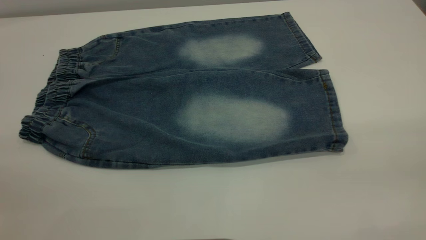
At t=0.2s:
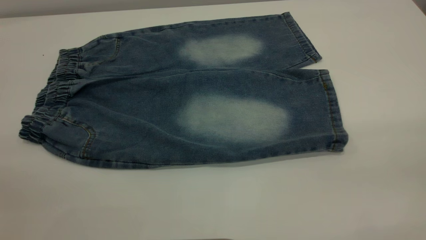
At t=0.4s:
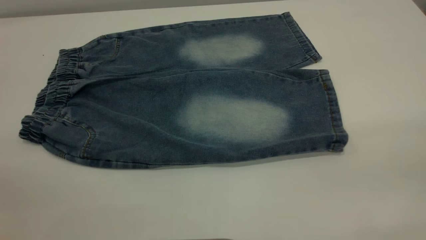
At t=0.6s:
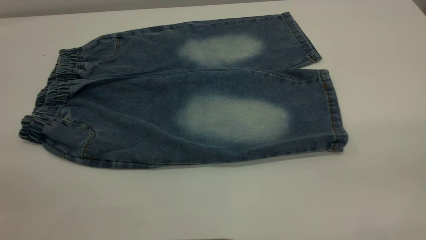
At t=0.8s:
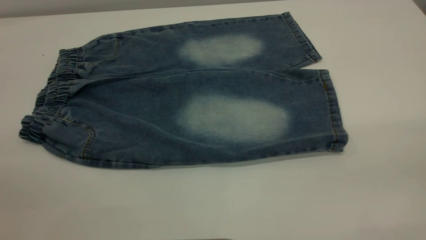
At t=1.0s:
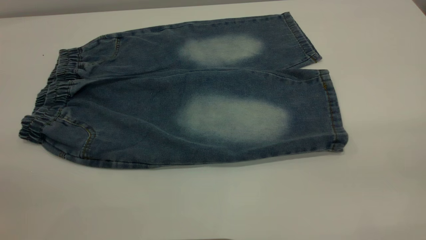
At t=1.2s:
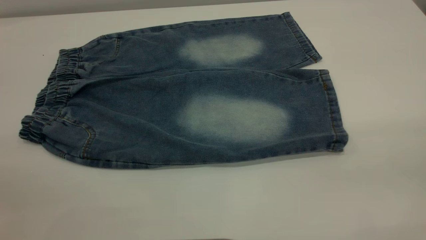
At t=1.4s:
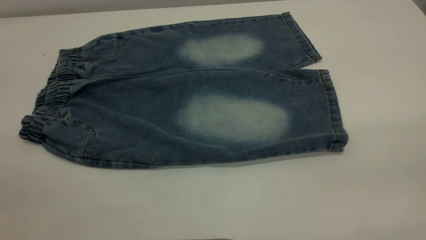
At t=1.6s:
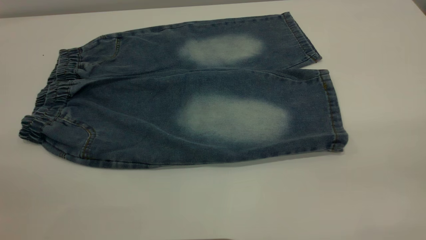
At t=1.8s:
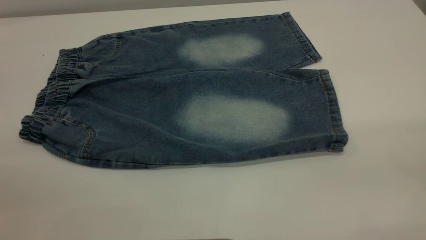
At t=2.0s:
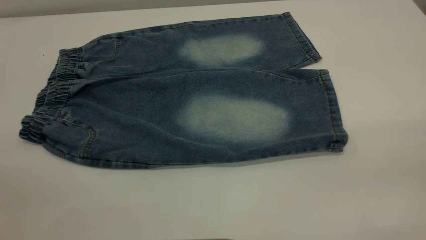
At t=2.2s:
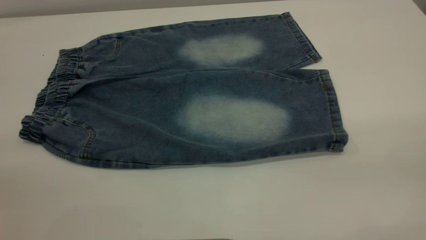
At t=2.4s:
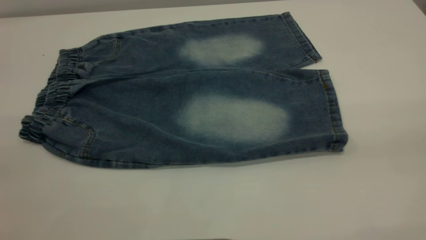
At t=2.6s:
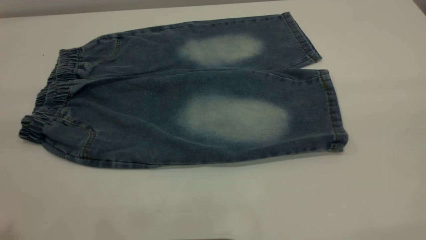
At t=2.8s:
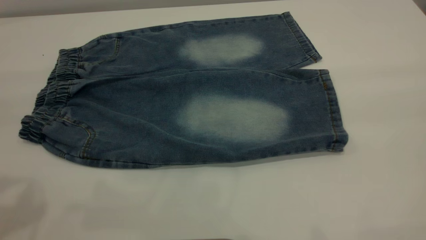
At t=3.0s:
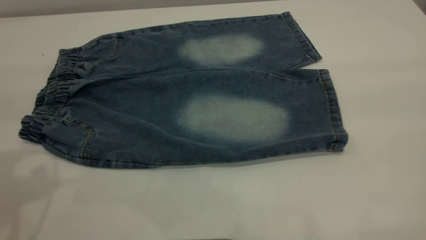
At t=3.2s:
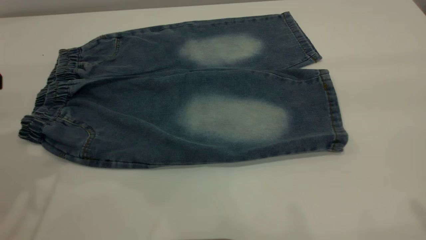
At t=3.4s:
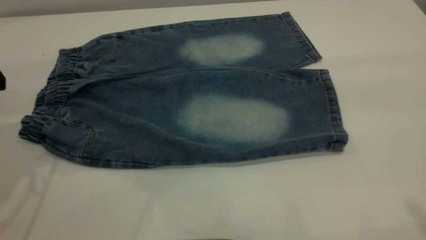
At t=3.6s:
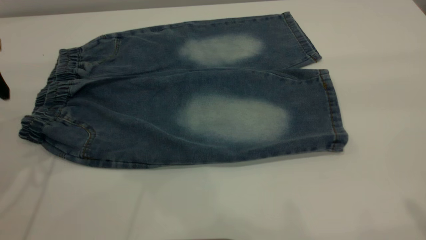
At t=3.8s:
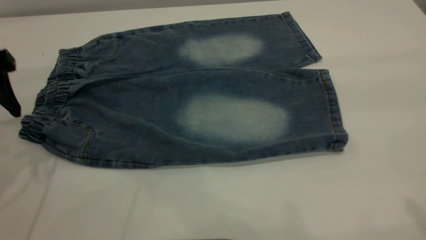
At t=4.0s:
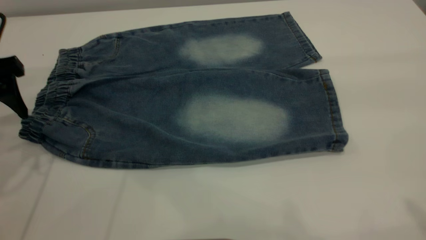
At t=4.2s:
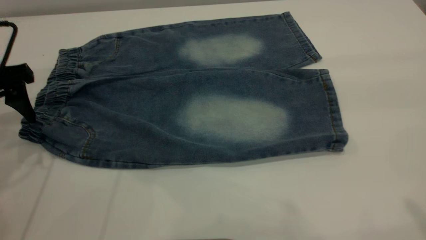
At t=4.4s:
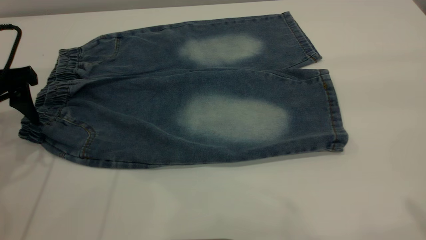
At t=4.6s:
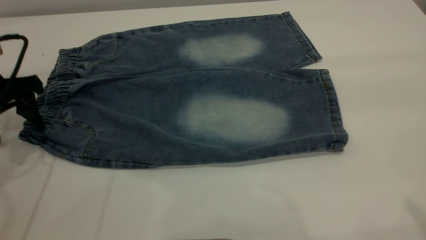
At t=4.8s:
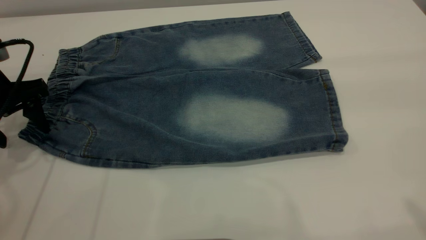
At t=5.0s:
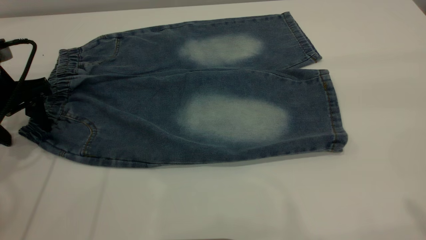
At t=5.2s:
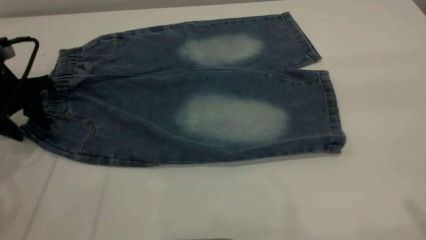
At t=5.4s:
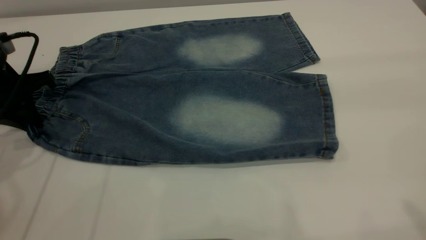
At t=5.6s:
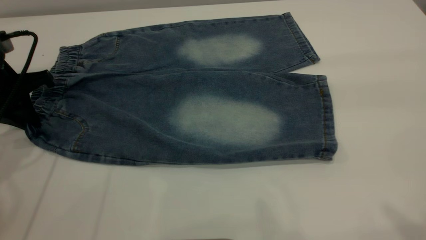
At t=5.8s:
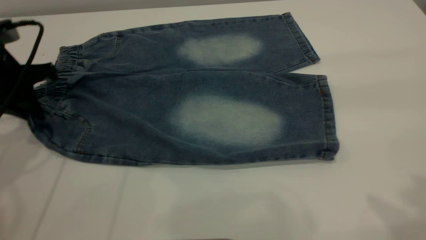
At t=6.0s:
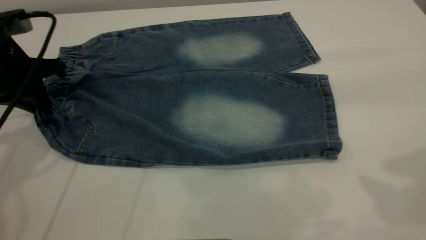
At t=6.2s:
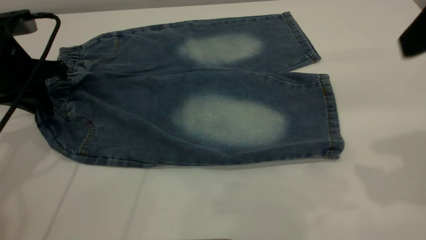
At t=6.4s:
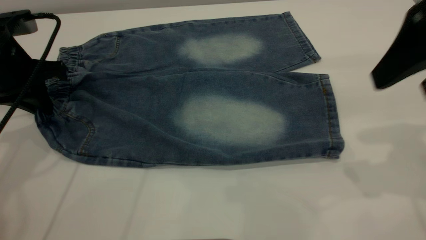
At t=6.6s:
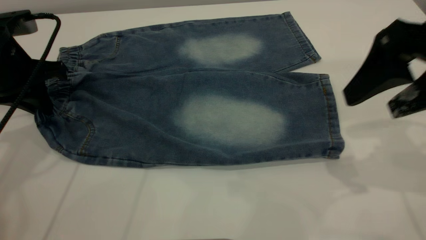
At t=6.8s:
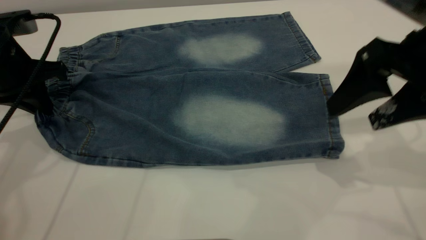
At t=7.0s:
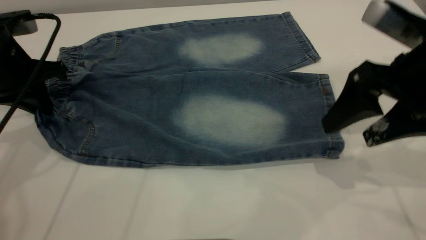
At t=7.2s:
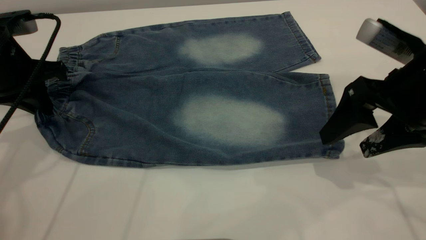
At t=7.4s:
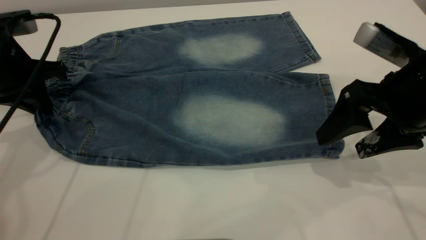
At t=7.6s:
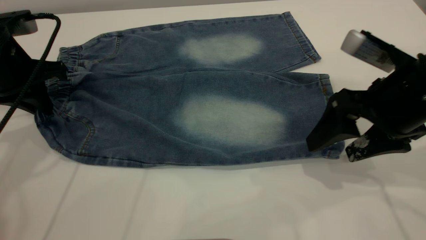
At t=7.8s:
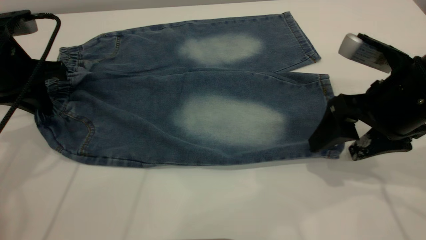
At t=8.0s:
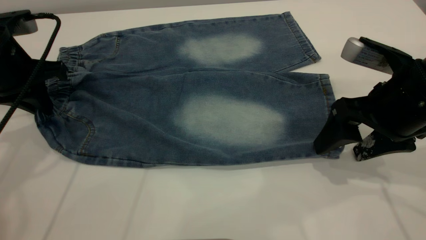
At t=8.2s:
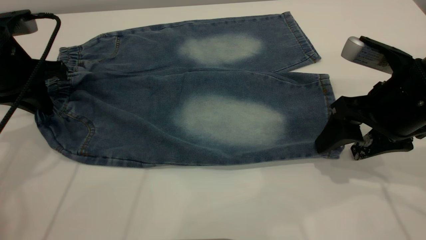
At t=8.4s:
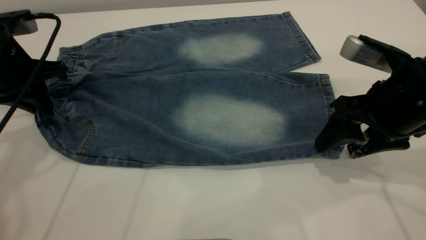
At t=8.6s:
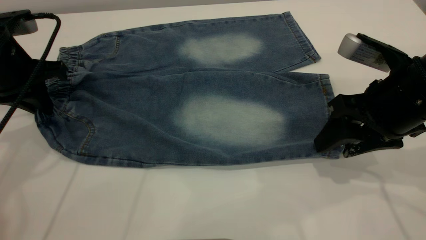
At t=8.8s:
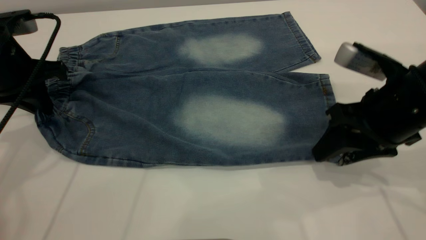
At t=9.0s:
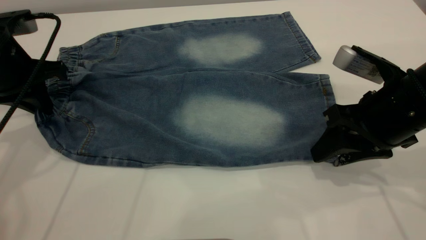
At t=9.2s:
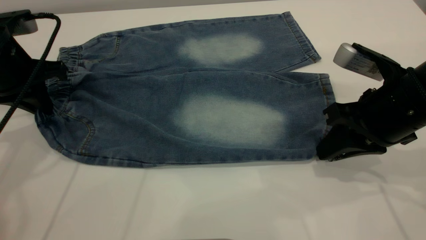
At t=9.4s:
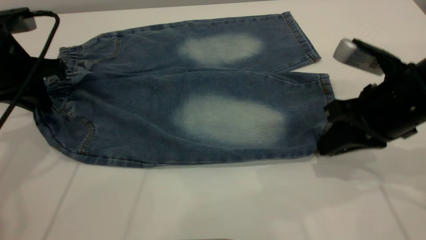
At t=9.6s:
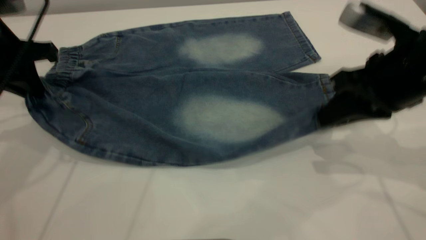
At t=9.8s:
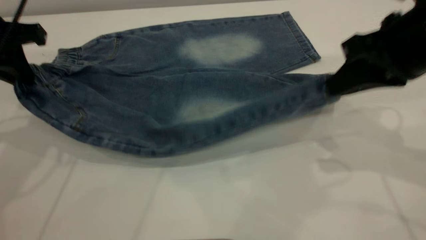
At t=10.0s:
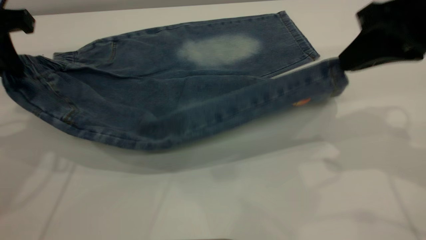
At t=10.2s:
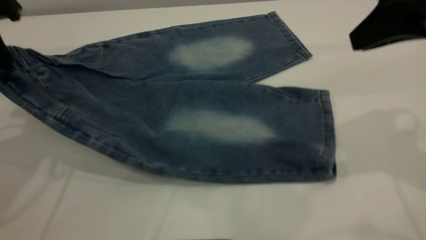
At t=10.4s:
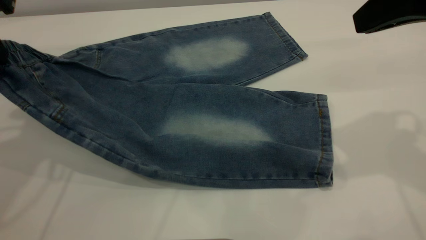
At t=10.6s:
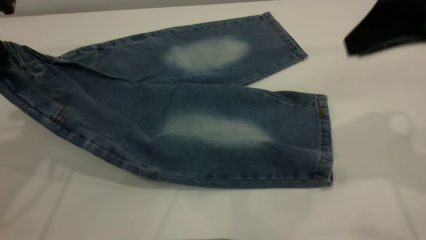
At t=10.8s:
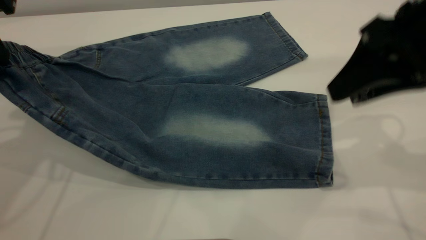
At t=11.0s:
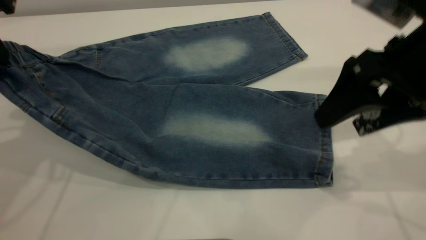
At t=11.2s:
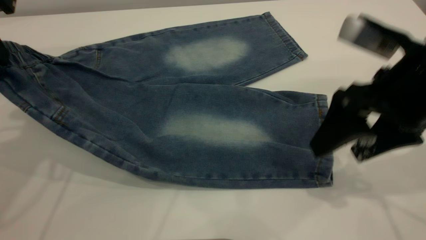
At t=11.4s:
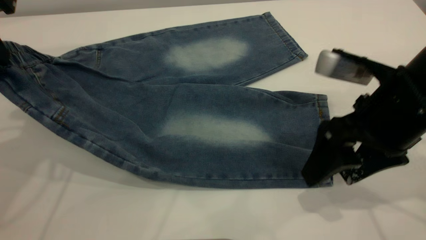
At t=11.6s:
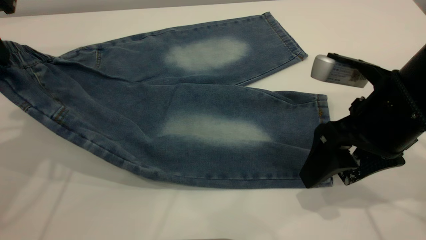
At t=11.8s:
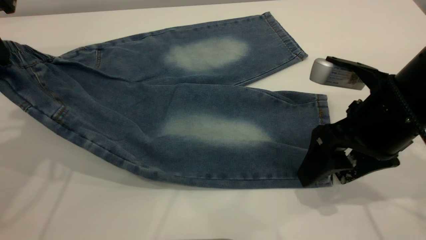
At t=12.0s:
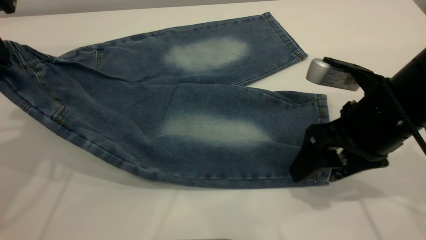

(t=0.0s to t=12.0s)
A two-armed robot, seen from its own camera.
t=0.0s - t=1.6s: The two grippers keep their place.
t=3.0s - t=4.4s: The left gripper moves downward and forward, approximately 15 cm.
t=4.4s - t=6.0s: The right gripper is displaced forward and downward by about 10 cm. The left gripper closes.
t=6.0s - t=7.6s: The right gripper is displaced downward by some 20 cm.
t=7.6s - t=9.0s: The right gripper closes.
t=9.0s - t=10.4s: The right gripper heads upward, covering some 15 cm, and closes up; the left gripper goes some 10 cm upward.
t=10.4s - t=12.0s: The right gripper shifts about 15 cm downward, and opens its fingers.

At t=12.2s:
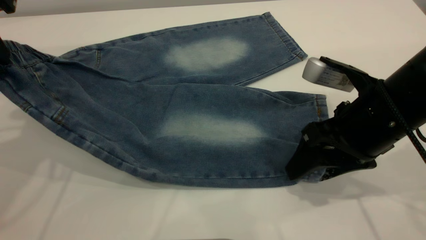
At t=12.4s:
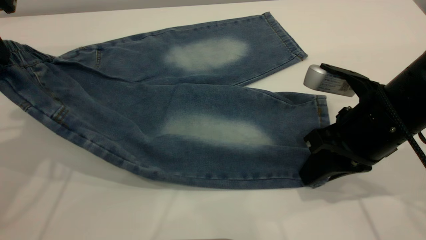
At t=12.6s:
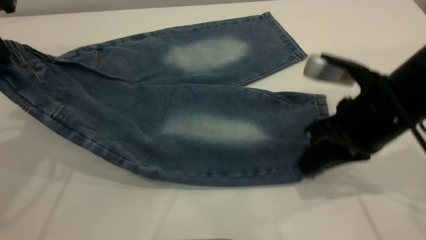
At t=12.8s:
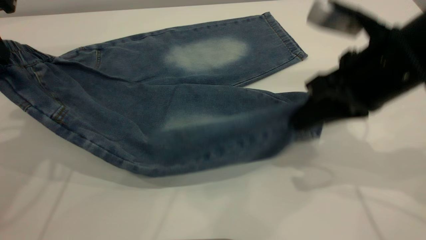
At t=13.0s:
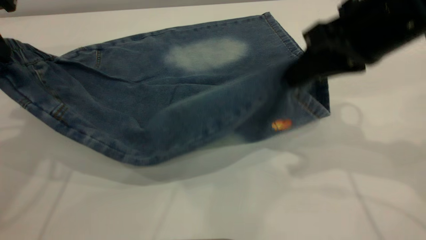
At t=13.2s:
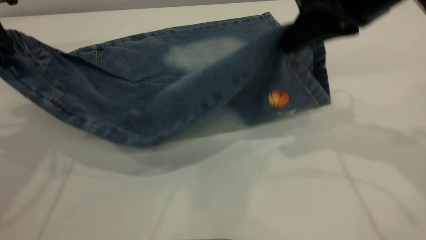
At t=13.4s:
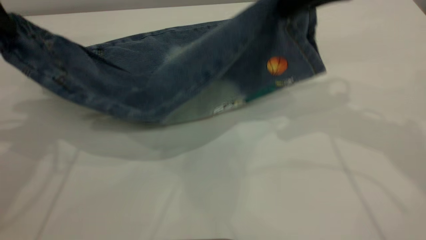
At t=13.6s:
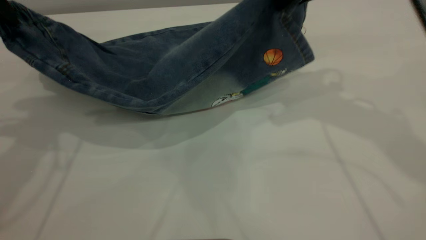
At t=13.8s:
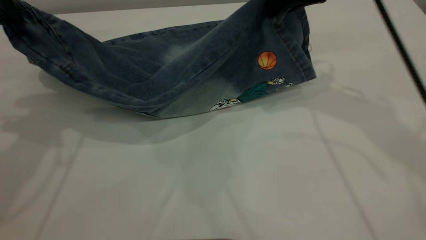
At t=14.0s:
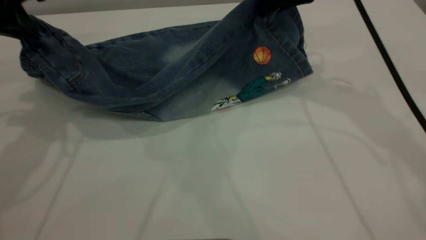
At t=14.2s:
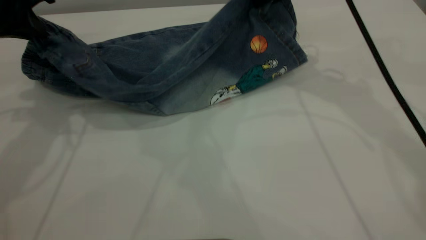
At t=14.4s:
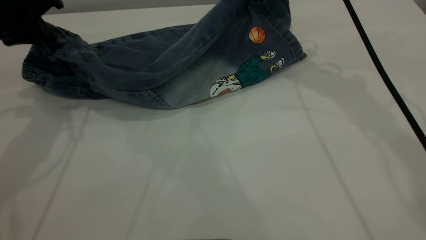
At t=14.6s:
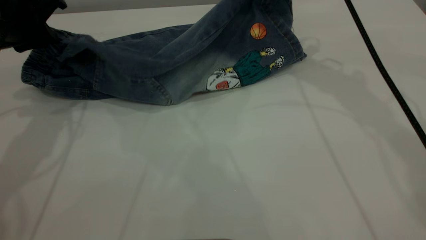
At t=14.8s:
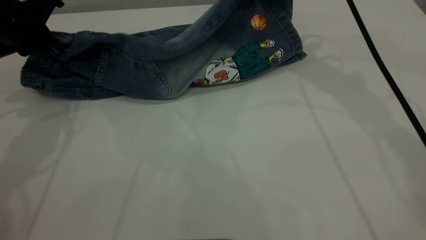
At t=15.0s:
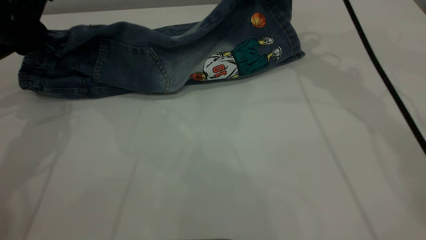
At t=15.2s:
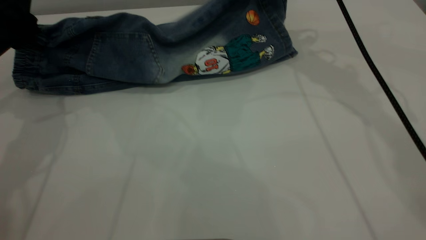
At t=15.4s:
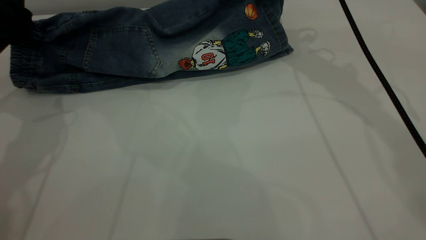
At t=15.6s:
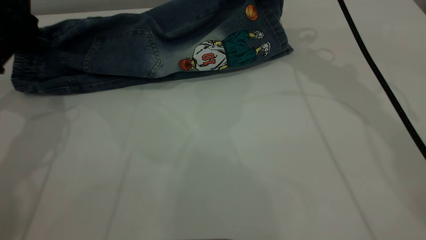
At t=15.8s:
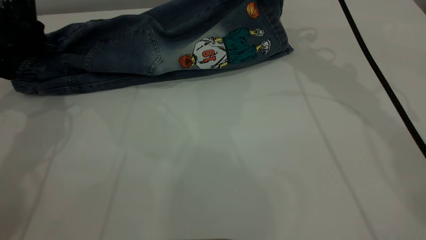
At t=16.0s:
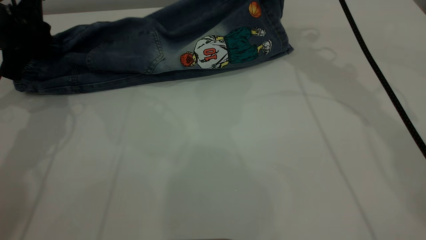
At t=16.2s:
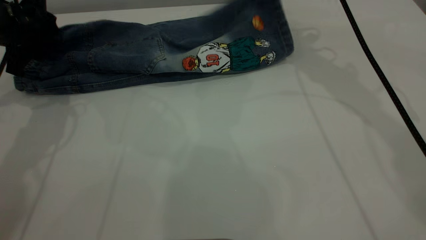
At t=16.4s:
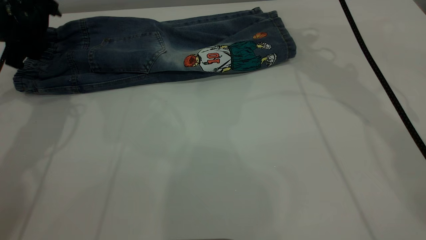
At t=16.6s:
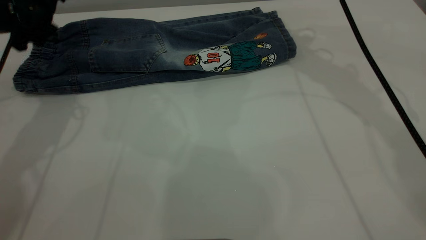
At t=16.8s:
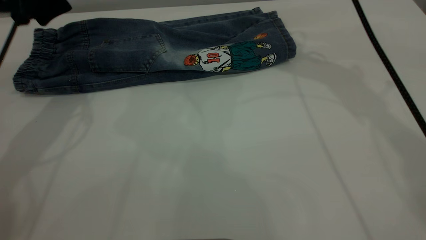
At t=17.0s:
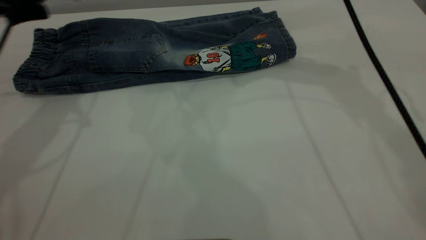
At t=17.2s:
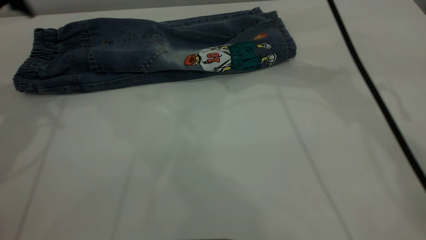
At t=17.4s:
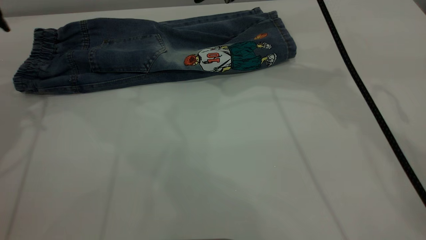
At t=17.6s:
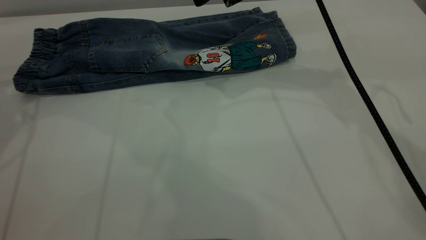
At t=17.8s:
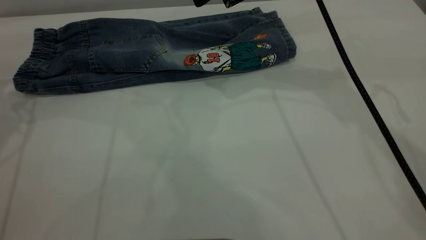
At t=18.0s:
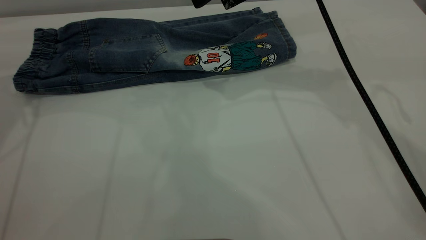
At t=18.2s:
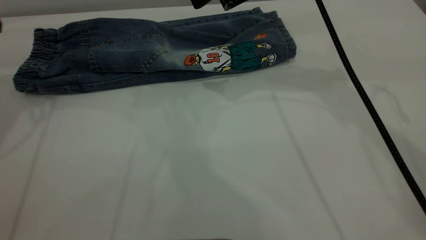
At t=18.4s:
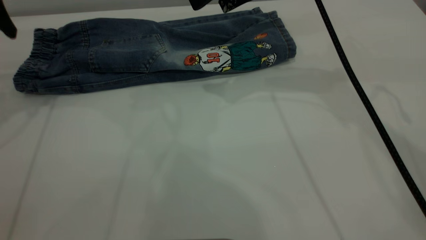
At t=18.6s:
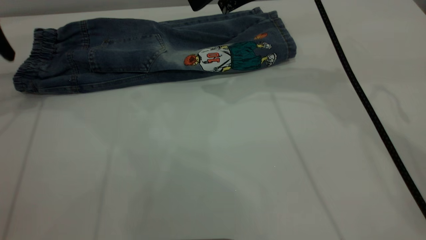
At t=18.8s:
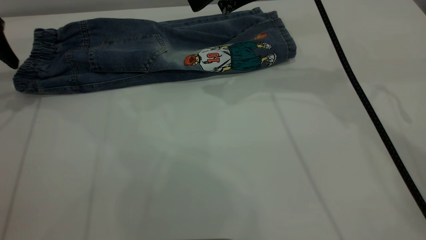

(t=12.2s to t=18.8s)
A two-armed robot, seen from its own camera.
Step, t=12.2s - t=17.8s: Fold the bottom of the pants upward.
t=12.2s - t=13.8s: The right gripper moves forward and upward, some 20 cm, and closes its fingers.
t=13.8s - t=15.4s: The left gripper goes approximately 10 cm downward. Meanwhile the right gripper travels forward by some 10 cm.
t=15.4s - t=17.2s: The left gripper opens up. Meanwhile the right gripper changes place by approximately 5 cm, and opens up.
t=17.2s - t=18.8s: The left gripper goes some 5 cm to the left.
